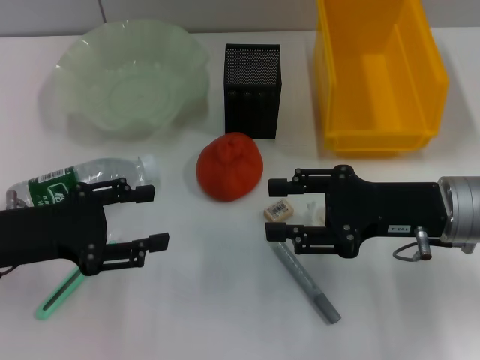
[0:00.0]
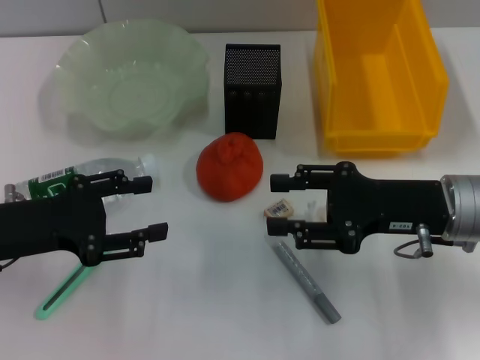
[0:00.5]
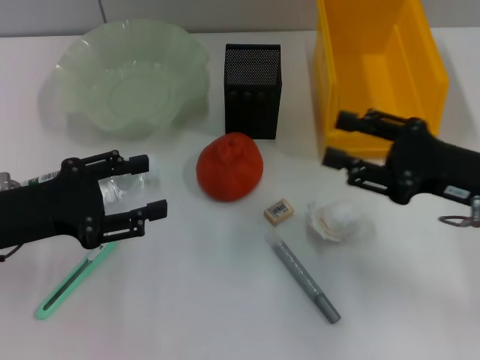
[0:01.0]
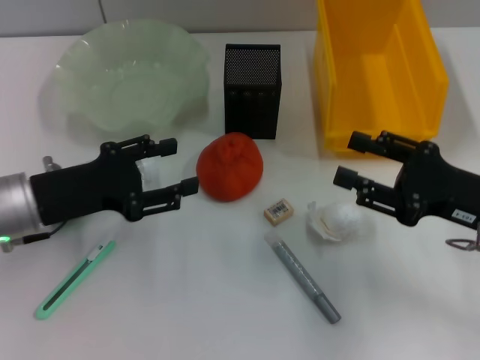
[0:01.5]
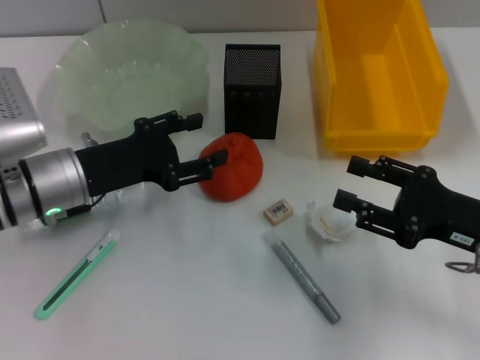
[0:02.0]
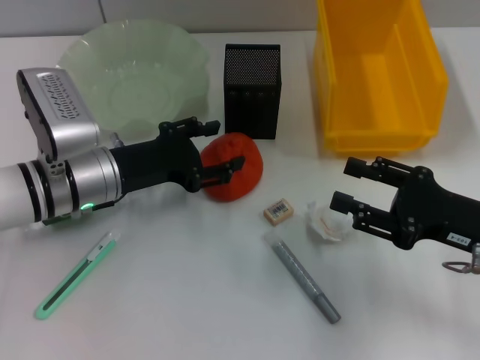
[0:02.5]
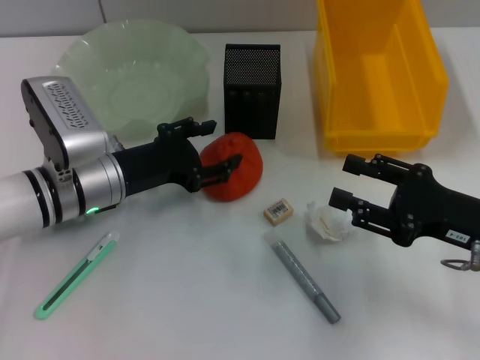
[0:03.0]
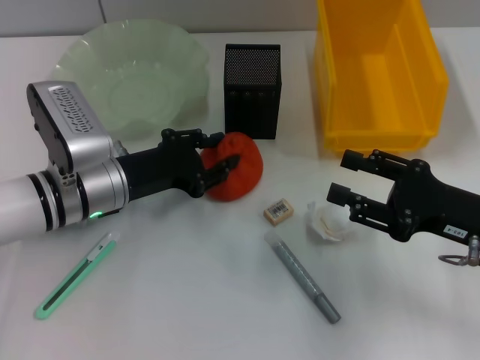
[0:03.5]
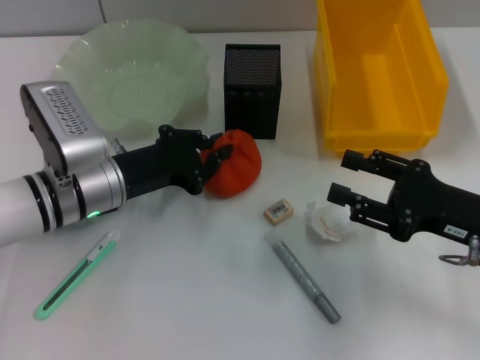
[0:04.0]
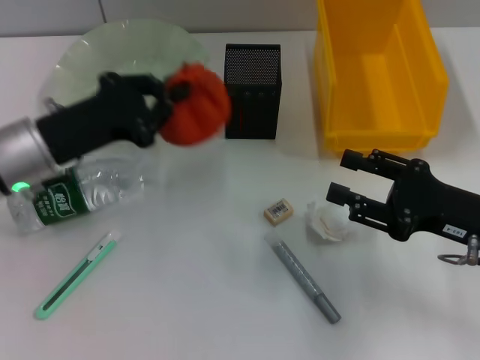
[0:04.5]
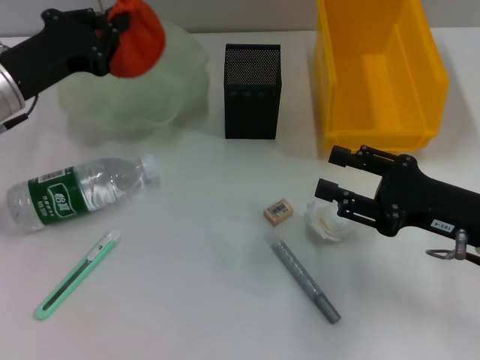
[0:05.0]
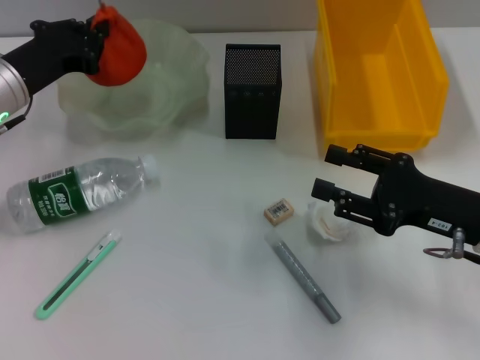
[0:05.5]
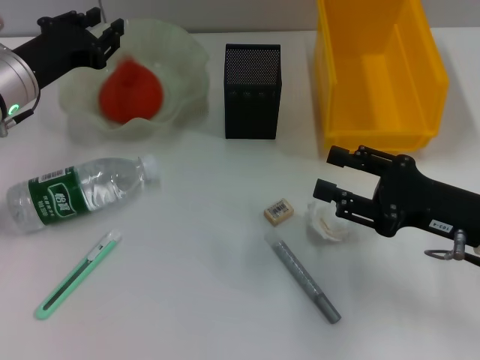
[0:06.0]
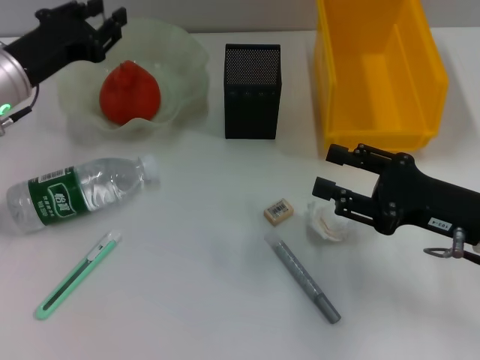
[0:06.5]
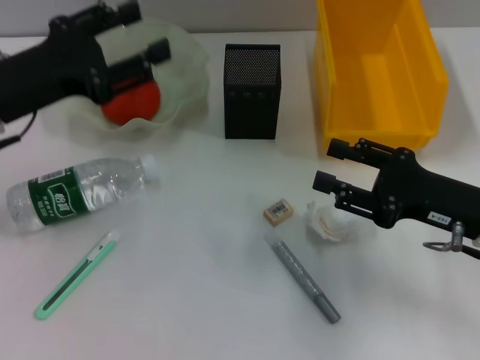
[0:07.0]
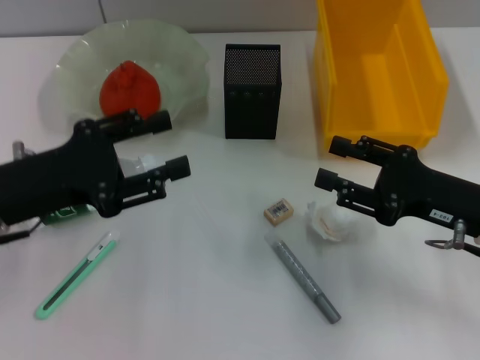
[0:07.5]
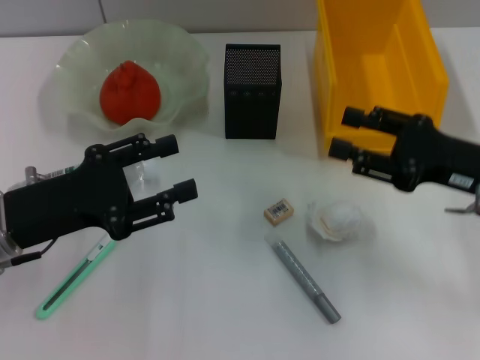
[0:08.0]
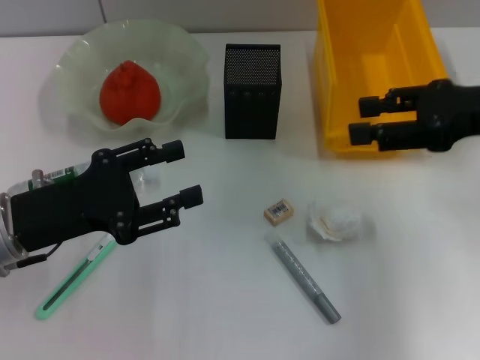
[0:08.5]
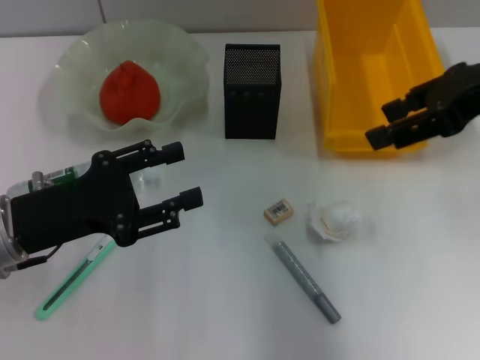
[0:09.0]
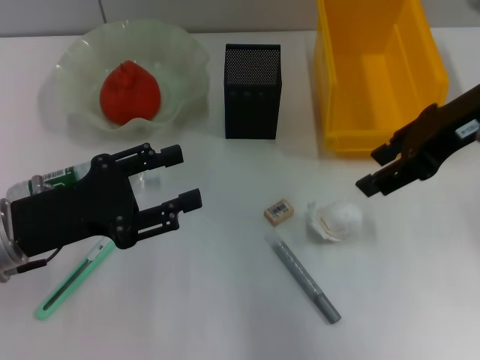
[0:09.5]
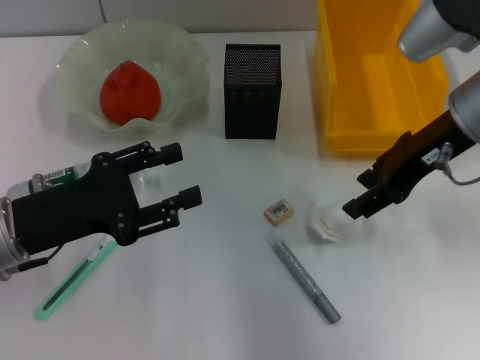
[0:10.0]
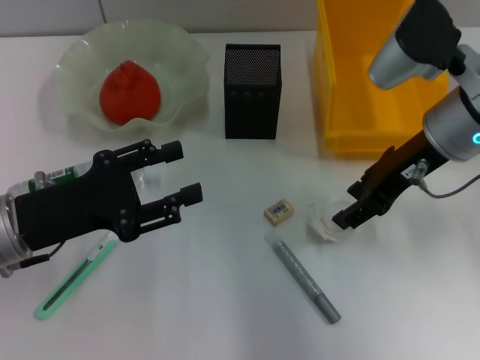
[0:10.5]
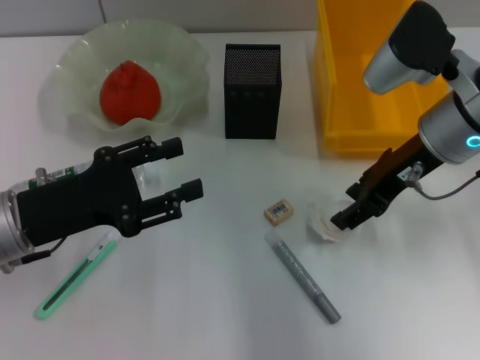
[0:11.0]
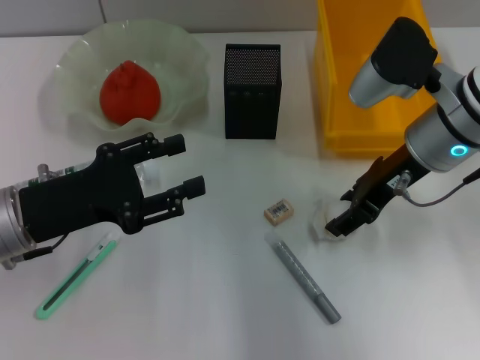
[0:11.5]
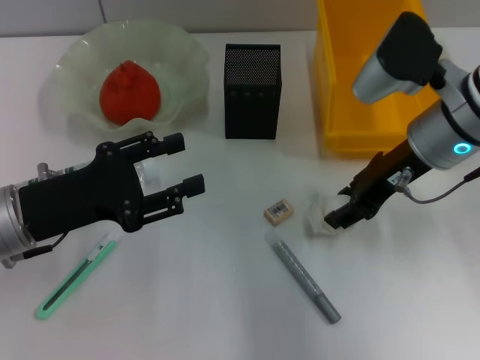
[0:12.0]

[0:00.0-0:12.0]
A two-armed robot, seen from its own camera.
Step, 0:00.0 to 0:03.5: Grab the orange with the left hand.
Step, 0:04.0 to 0:06.0: Place the orange into the fruit bowl with the left hand.
Step, 0:06.5 to 0:11.5: Grab the paper ball with the right hand.
0:00.0 to 0:02.0: The left gripper goes roughly 10 cm forward and to the right. The right gripper shifts about 5 cm to the right.
0:02.0 to 0:04.0: The left gripper closes up.
0:04.0 to 0:06.0: The left gripper goes approximately 10 cm to the left, forward and upward.
0:06.0 to 0:08.0: The left gripper moves backward, approximately 15 cm, and opens; the right gripper moves about 5 cm.
0:08.0 to 0:10.0: The right gripper travels upward, to the left and forward by approximately 15 cm.
0:10.0 to 0:12.0: There are only small adjustments of the grippers.

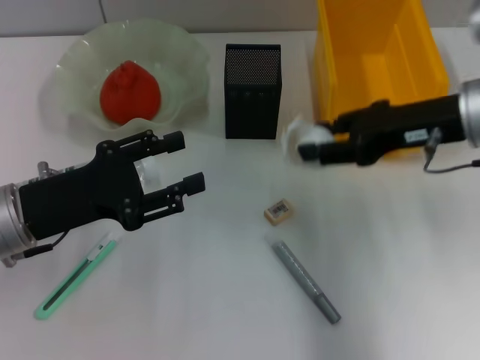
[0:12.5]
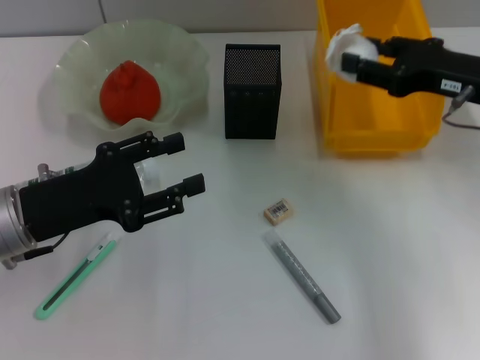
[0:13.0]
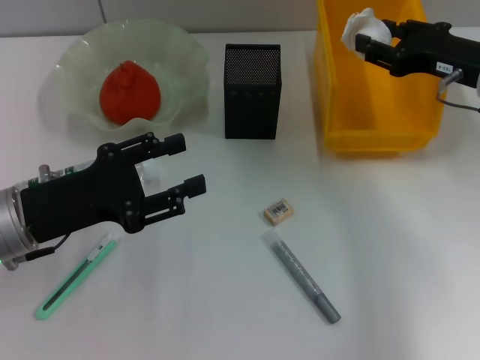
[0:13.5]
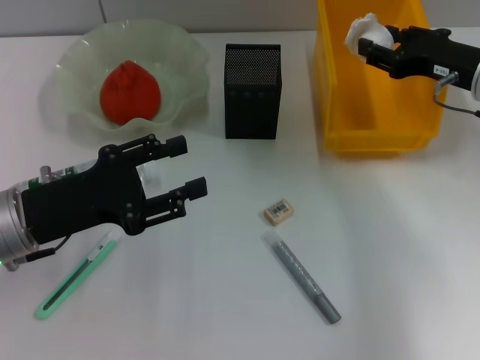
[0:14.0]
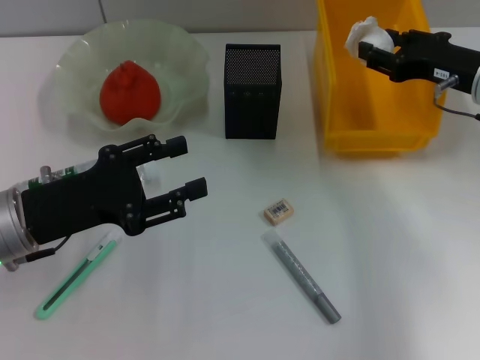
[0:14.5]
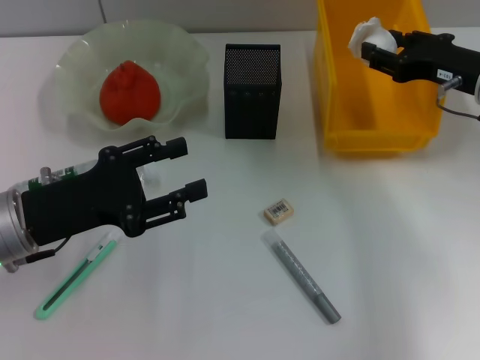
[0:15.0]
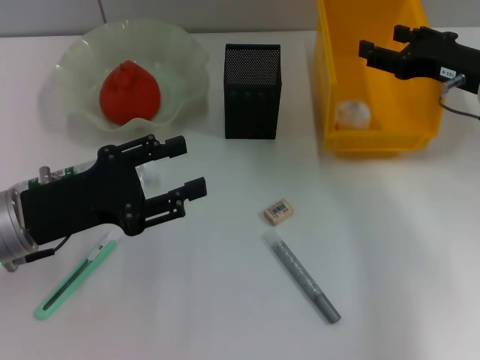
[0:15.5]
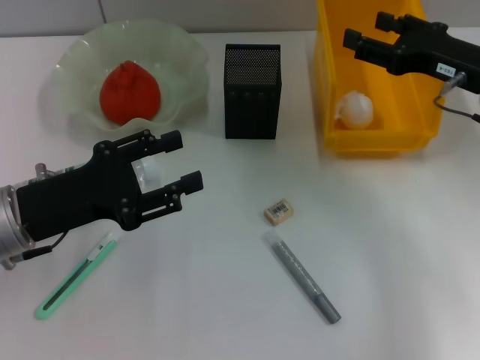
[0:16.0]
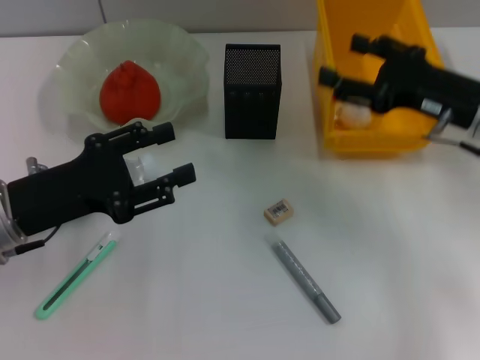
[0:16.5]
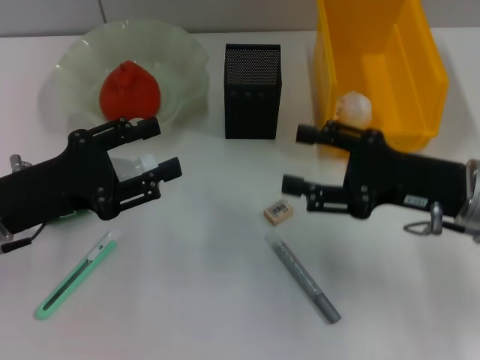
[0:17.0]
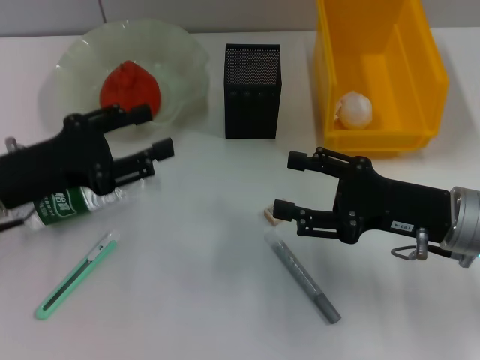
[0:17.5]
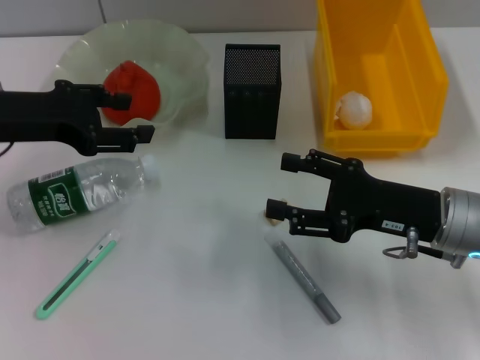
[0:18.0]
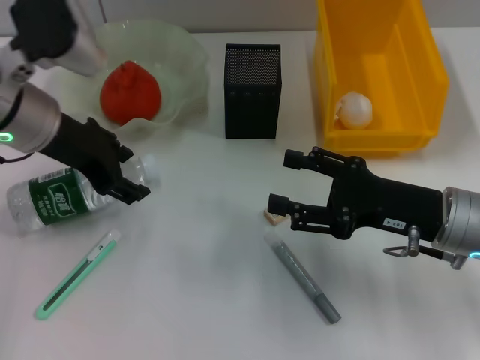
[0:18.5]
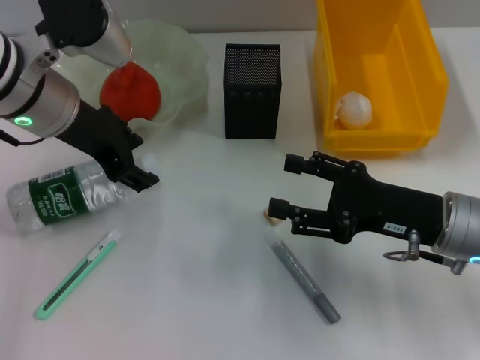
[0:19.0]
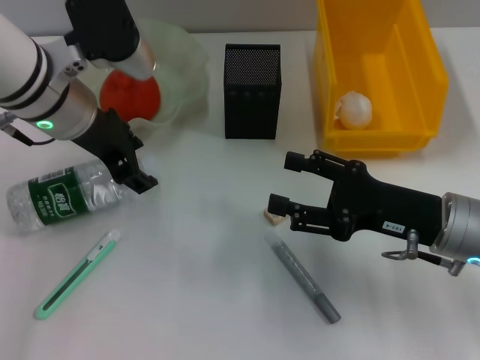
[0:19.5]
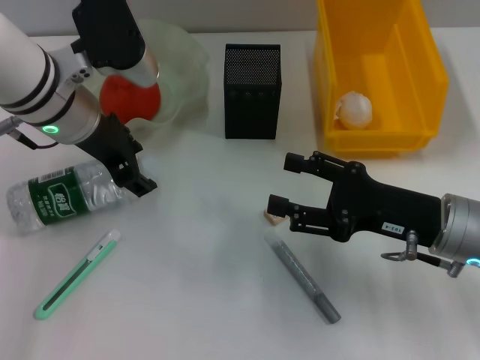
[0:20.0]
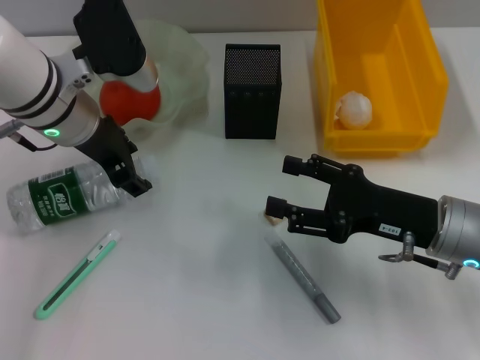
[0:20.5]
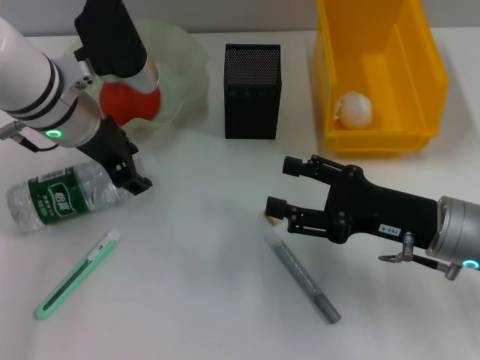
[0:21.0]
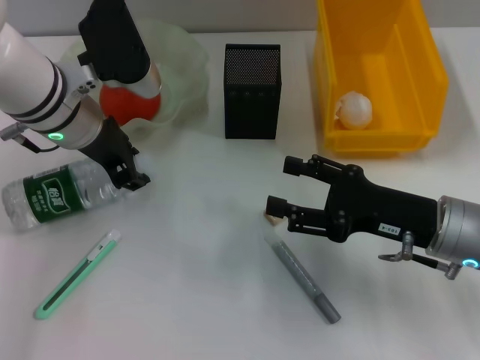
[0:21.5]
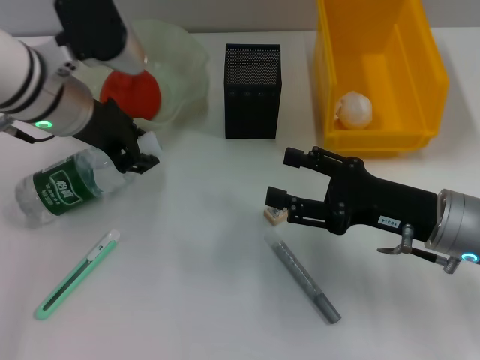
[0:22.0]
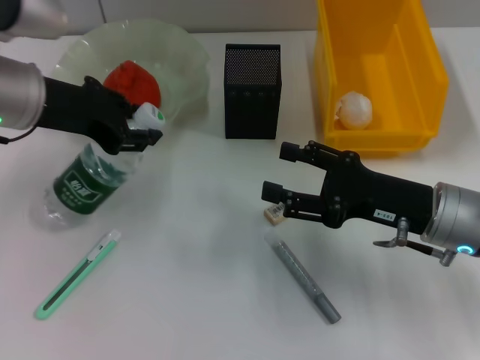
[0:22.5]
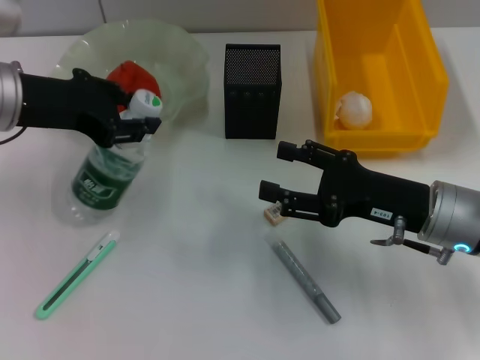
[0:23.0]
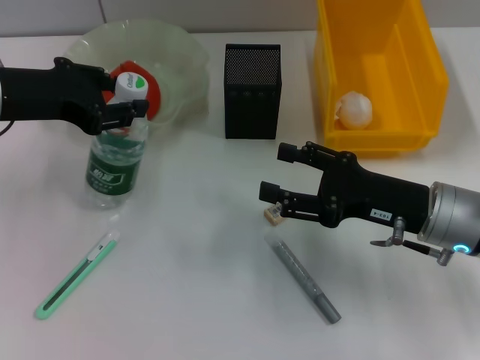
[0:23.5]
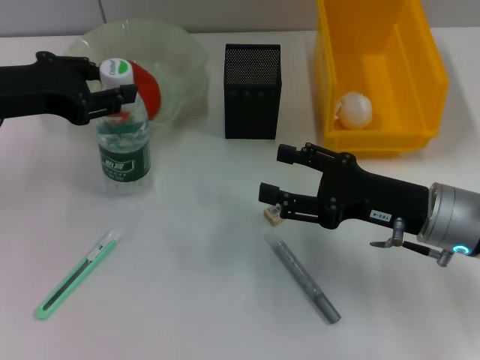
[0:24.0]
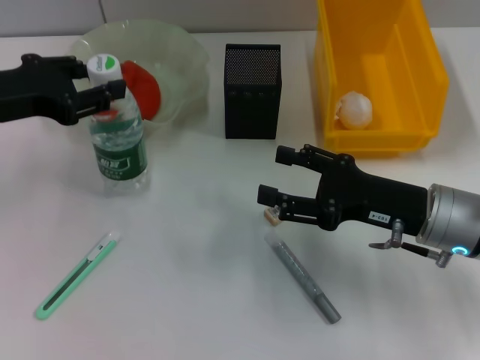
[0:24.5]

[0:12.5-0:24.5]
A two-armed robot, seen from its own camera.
Step, 0:12.5 to 0:16.0: Place the paper ball into the trash can with the right hand.
Step, 0:16.5 to 0:21.0: Grab the water bottle with the left hand.
0:12.5 to 0:14.5: The right gripper moves downward, roughly 5 cm.
0:14.5 to 0:16.5: The right gripper goes some 5 cm backward, and opens up.
0:16.5 to 0:18.5: The right gripper heads backward and downward, covering roughly 10 cm; the left gripper shifts about 15 cm forward, upward and to the right.
0:18.5 to 0:20.5: The grippers move only a little.
0:20.5 to 0:22.5: The left gripper moves some 5 cm.
0:22.5 to 0:24.5: The left gripper is displaced to the left by roughly 5 cm.

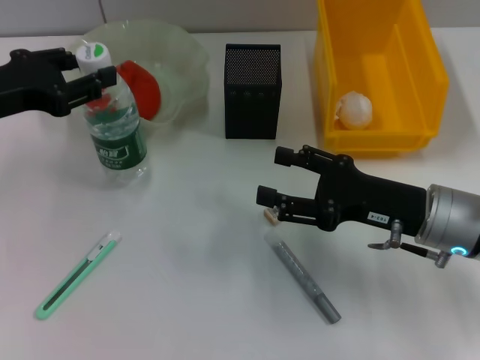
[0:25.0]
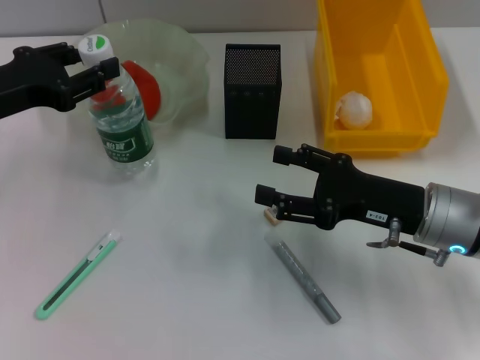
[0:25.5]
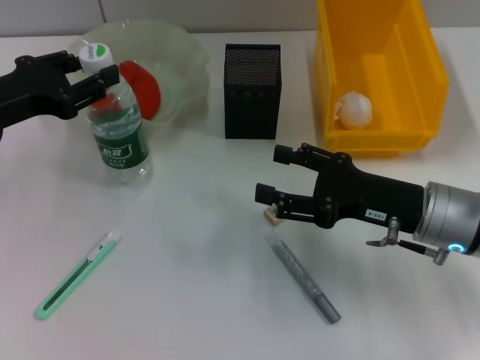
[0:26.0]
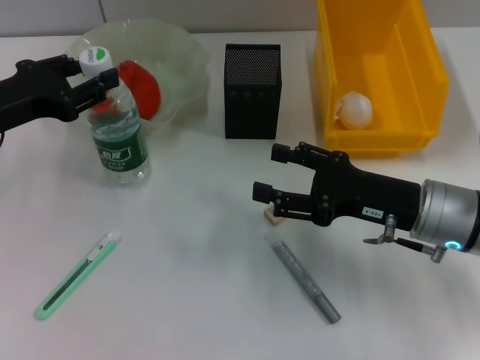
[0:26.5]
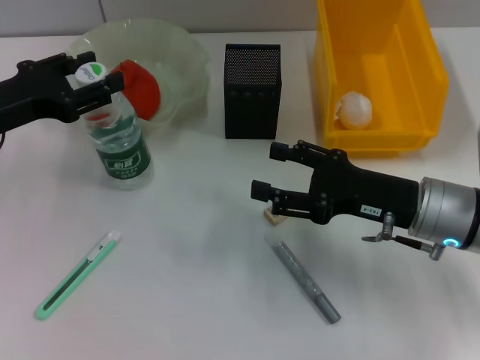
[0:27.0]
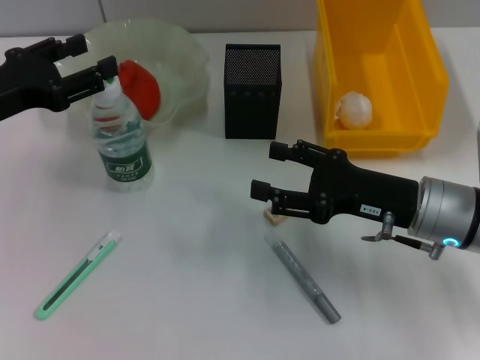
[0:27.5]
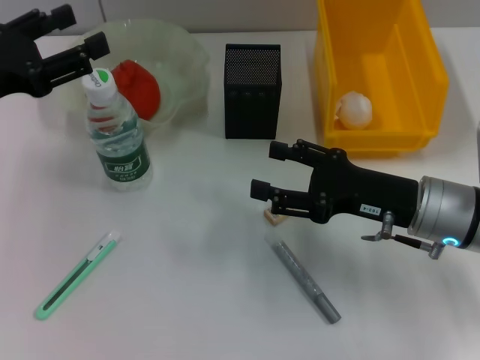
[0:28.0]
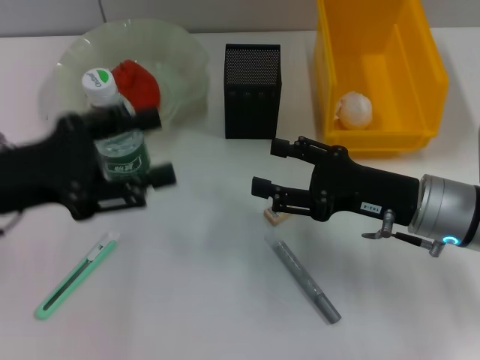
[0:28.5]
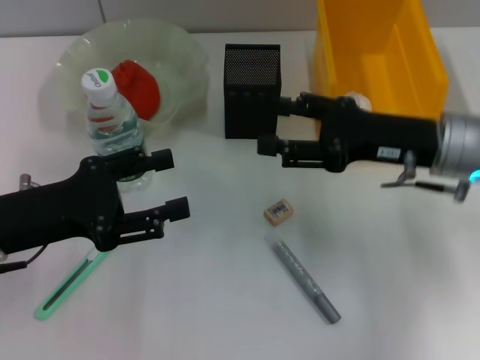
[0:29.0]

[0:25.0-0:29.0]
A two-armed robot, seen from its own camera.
Step, 0:25.0 to 0:27.0: Place the water bottle on the table with the left hand.
0:25.0 to 0:27.0: The grippers move only a little.
0:27.0 to 0:29.0: The right gripper heads upward, covering about 5 cm; the left gripper travels backward by about 5 cm, and opens.
